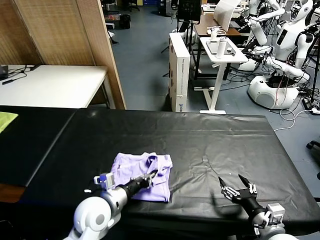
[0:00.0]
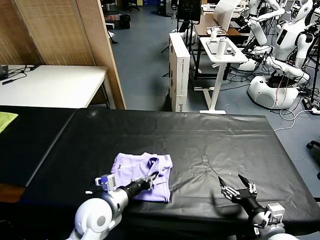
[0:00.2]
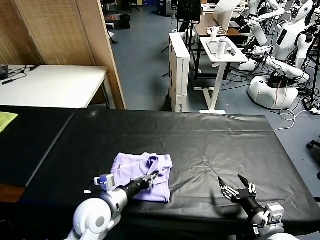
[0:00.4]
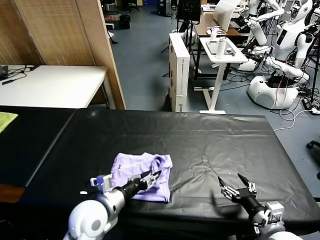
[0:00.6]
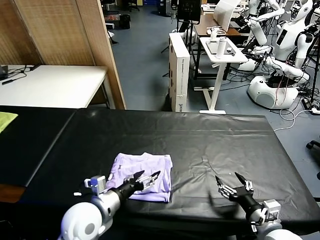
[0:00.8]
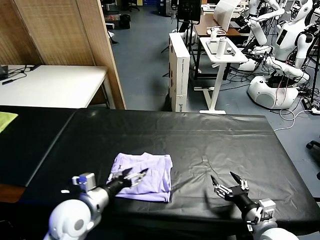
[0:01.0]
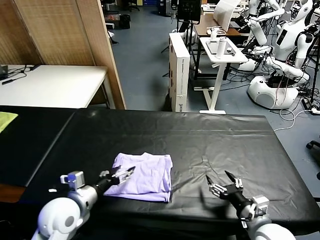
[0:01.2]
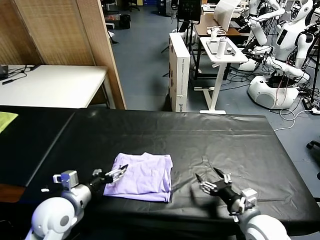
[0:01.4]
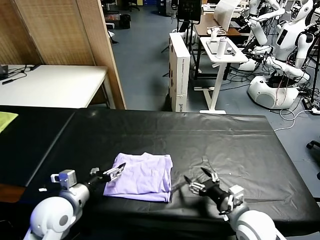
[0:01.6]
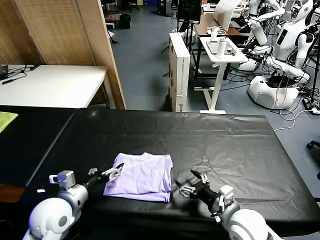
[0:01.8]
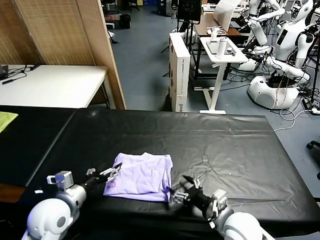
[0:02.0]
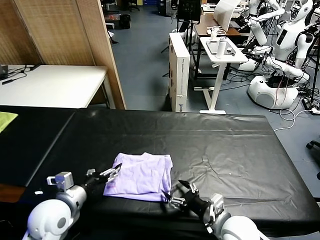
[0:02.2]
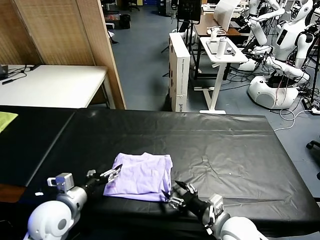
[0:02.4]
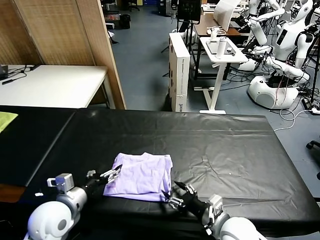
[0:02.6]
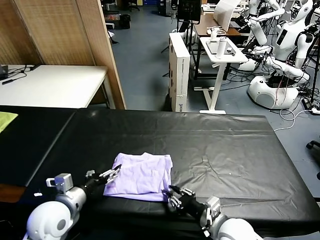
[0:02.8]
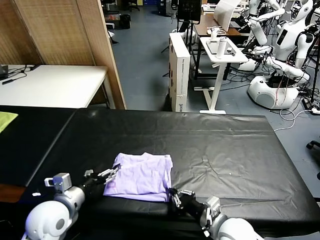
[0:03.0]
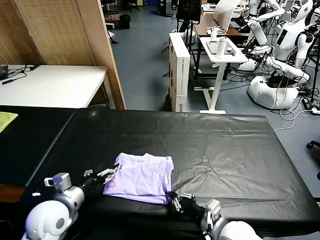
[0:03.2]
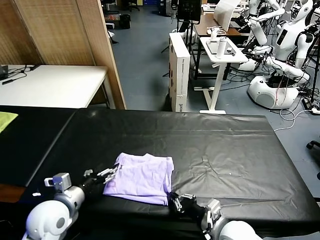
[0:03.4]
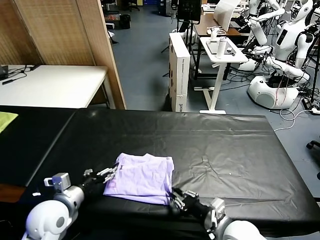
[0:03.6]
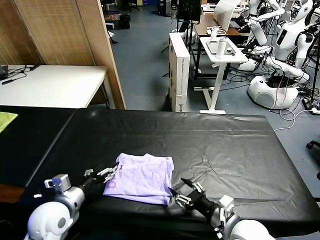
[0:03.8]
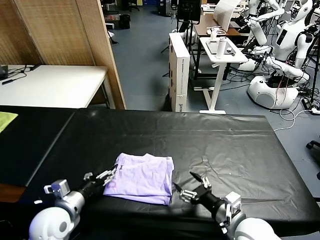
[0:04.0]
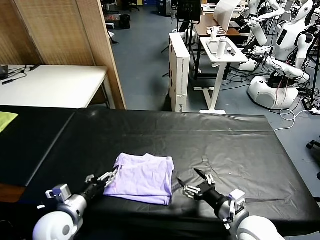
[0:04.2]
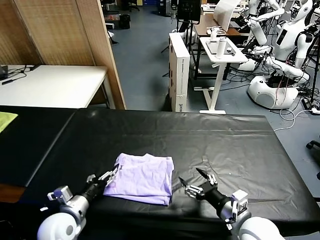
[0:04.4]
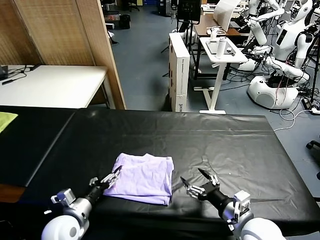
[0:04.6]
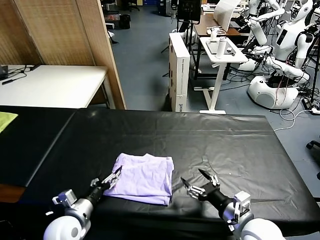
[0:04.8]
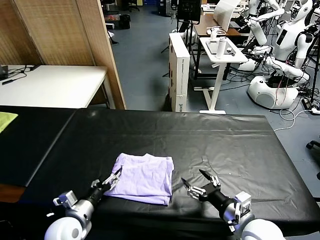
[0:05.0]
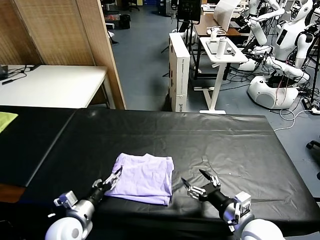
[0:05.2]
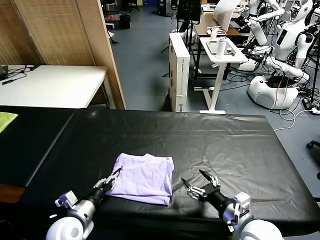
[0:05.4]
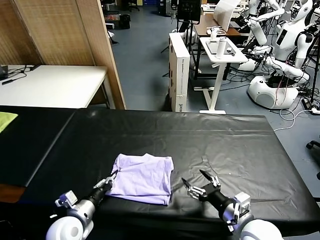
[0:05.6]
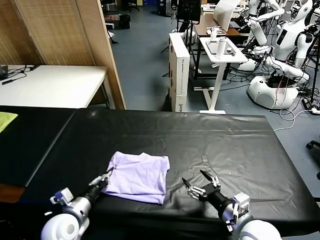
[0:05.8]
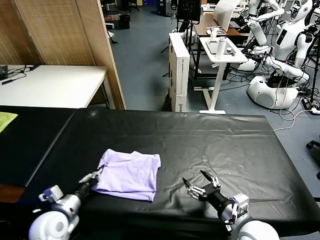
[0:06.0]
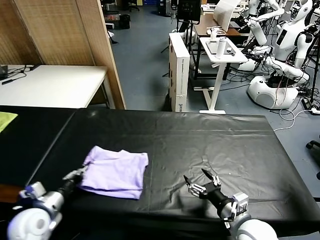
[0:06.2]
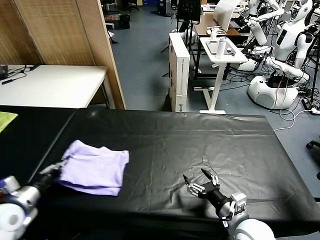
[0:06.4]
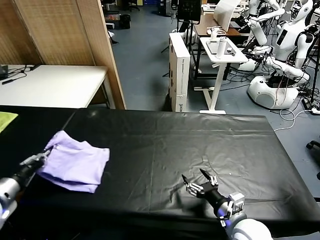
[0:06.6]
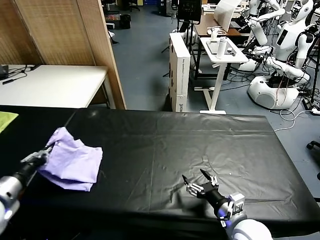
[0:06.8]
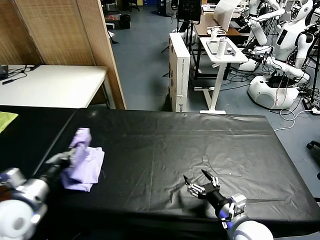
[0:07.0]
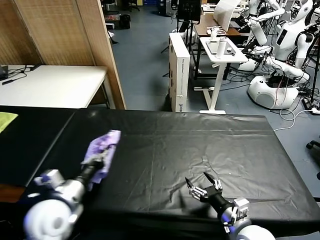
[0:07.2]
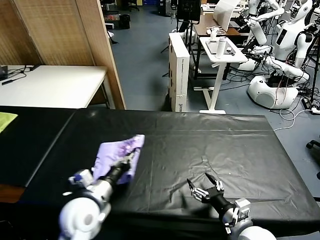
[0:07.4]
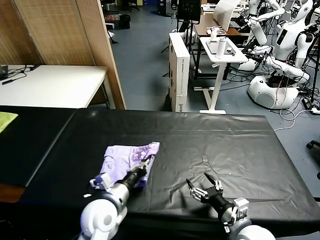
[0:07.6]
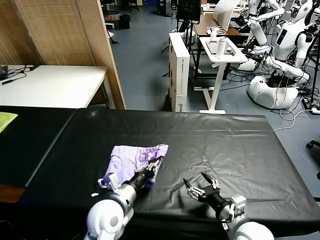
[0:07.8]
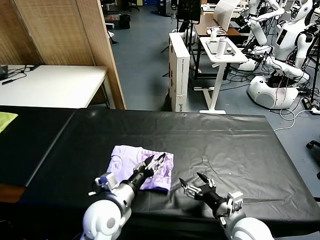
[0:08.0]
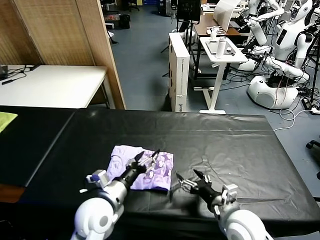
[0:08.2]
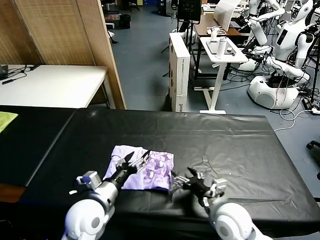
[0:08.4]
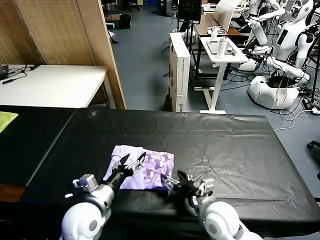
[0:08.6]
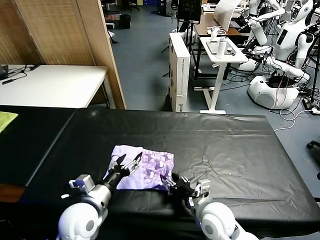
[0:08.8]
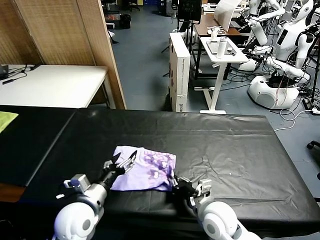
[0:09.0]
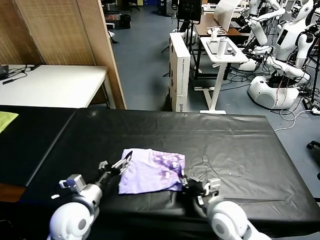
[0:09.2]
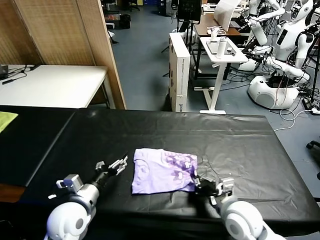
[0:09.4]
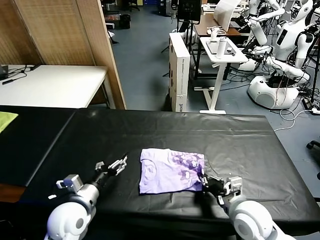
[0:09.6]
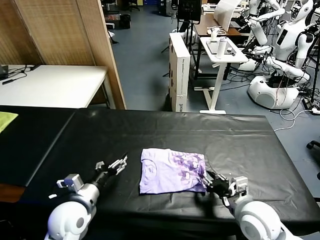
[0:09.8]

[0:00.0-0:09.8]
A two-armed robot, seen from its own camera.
Task of the whole recording: fold and organize the clothes.
Step, 0:01.0 to 0:08.0: Flip the folded clothes over with left gripper.
Step, 0:08.2 to 0:09.8: Drag the clothes to the center of the table.
0:00.0 to 0:01.4: The left gripper goes roughly 10 cm to the left, and opens its fingers. Meanwhile the right gripper shifts by some 5 cm.
0:01.4 to 0:02.8: The right gripper heads to the left, covering approximately 5 cm, and closes.
0:02.8 to 0:04.2: The right gripper shifts by roughly 5 cm, and opens, while the left gripper shifts by some 5 cm.
0:04.2 to 0:05.6: The left gripper closes its fingers.
0:05.6 to 0:07.0: The left gripper travels upward and to the left by about 20 cm.
0:07.0 to 0:08.4: The left gripper goes about 20 cm to the right and downward, and opens. The right gripper ends up approximately 5 cm from where it was.
0:08.4 to 0:09.8: The right gripper shifts some 5 cm to the right, and closes its fingers, while the left gripper travels to the left by roughly 5 cm.

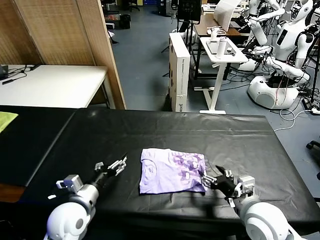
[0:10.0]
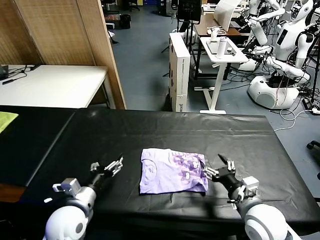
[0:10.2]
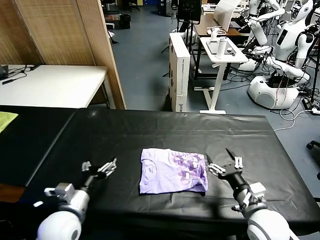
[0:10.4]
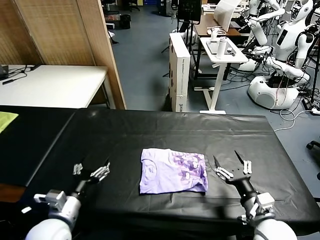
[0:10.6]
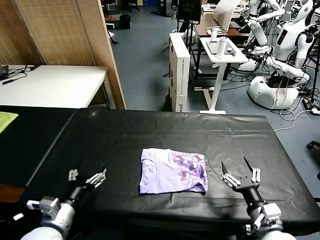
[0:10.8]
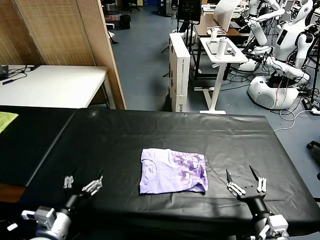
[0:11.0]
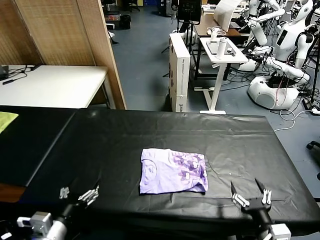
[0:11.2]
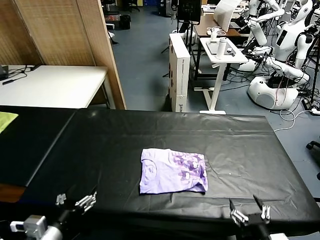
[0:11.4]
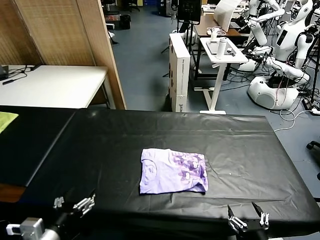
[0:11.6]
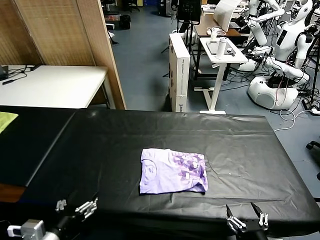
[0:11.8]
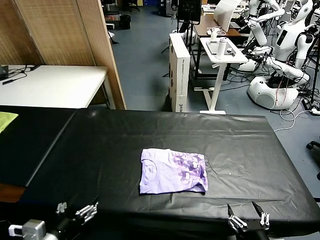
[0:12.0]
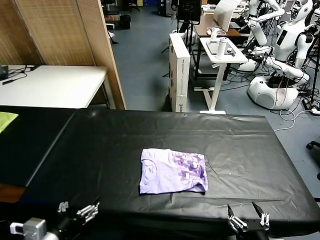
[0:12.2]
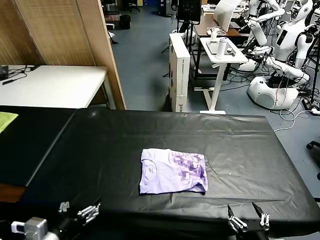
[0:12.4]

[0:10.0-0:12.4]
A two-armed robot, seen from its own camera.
Task of the whole recording: fold and organize the clothes.
0:10.0 to 0:11.2: Both grippers move backward, approximately 10 cm.
0:11.2 to 0:12.4: The left gripper changes place by approximately 5 cm, while the right gripper ends up about 5 cm from where it was.

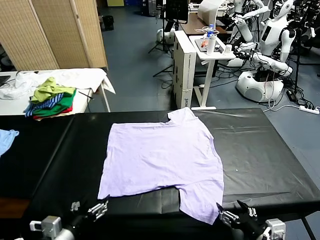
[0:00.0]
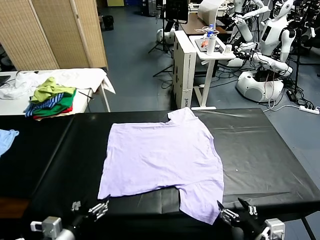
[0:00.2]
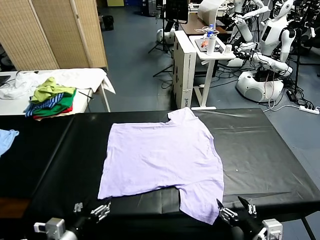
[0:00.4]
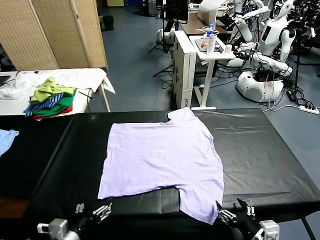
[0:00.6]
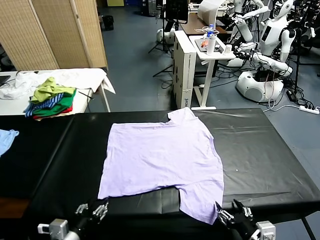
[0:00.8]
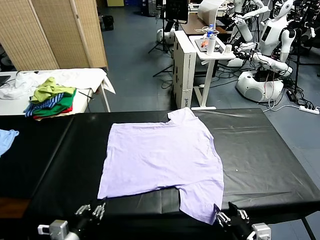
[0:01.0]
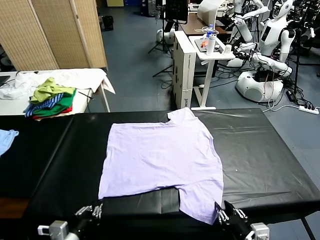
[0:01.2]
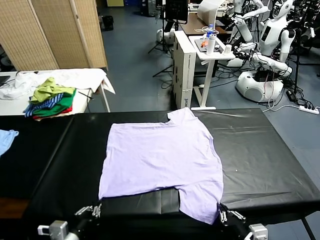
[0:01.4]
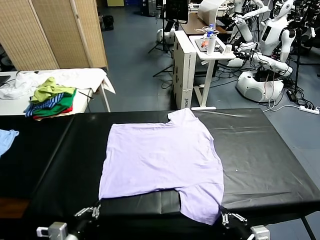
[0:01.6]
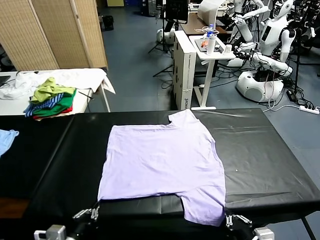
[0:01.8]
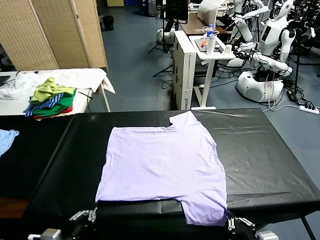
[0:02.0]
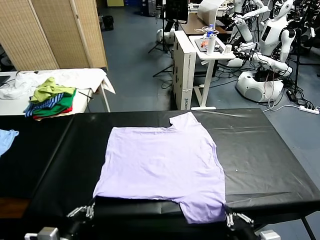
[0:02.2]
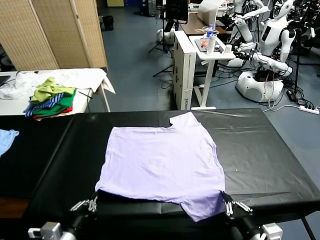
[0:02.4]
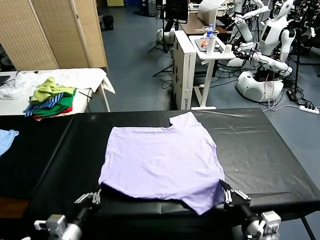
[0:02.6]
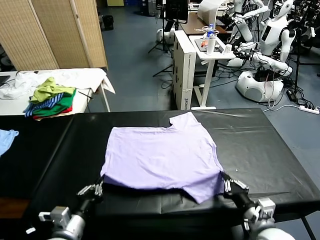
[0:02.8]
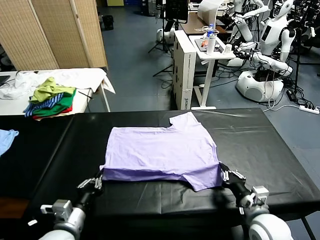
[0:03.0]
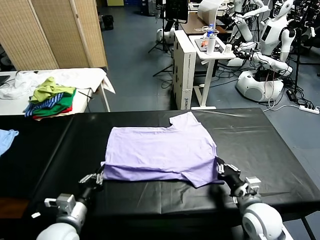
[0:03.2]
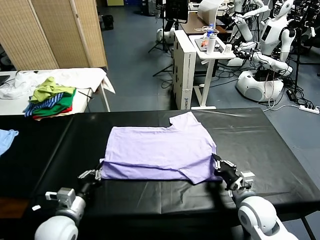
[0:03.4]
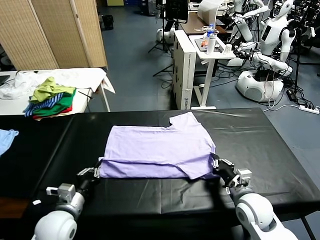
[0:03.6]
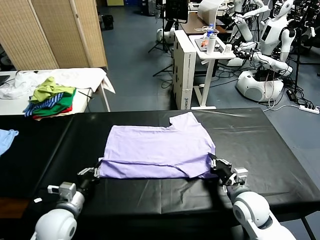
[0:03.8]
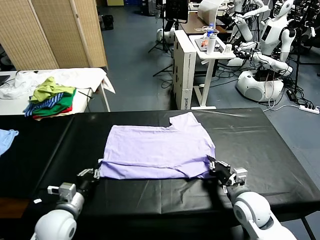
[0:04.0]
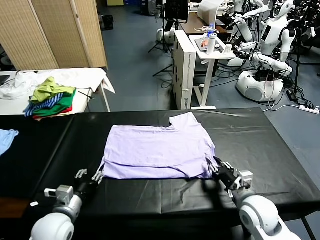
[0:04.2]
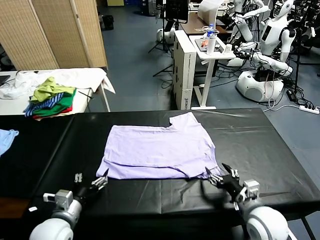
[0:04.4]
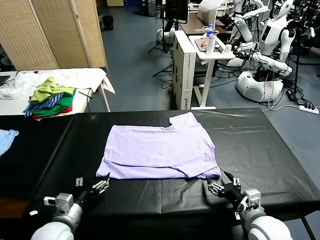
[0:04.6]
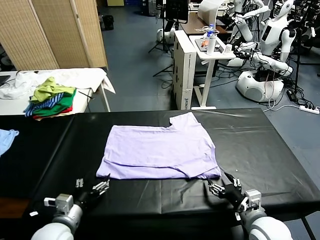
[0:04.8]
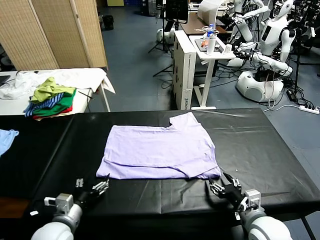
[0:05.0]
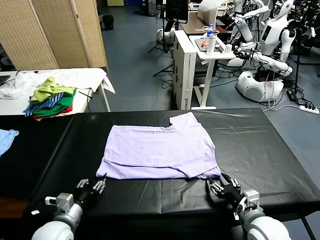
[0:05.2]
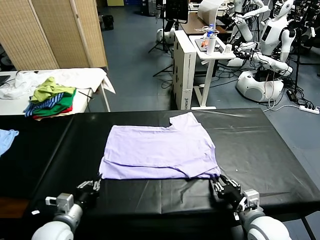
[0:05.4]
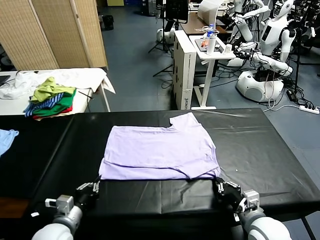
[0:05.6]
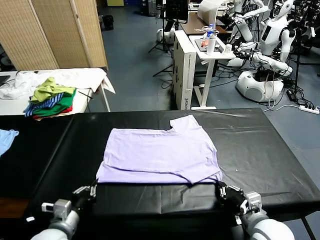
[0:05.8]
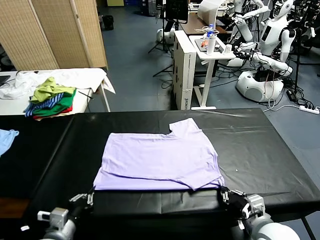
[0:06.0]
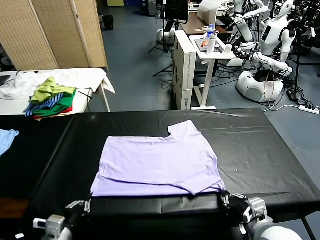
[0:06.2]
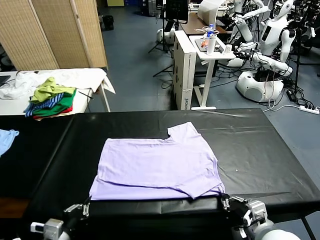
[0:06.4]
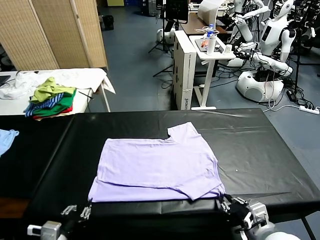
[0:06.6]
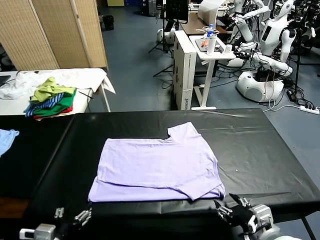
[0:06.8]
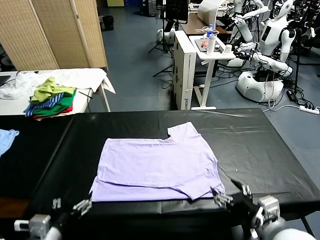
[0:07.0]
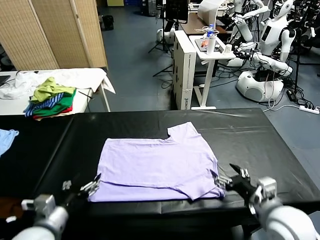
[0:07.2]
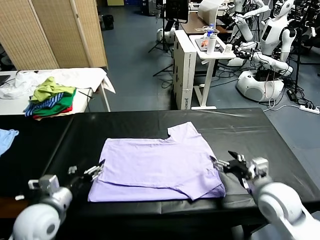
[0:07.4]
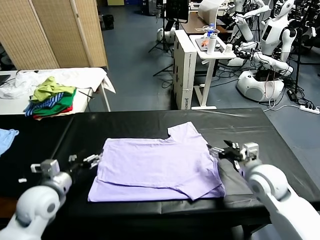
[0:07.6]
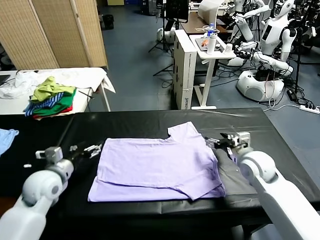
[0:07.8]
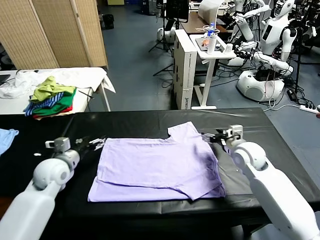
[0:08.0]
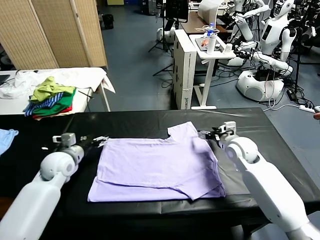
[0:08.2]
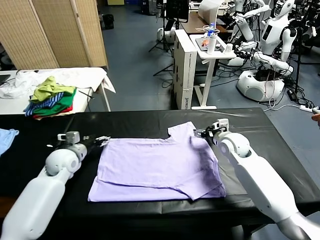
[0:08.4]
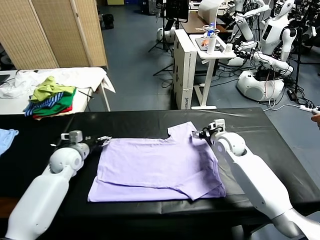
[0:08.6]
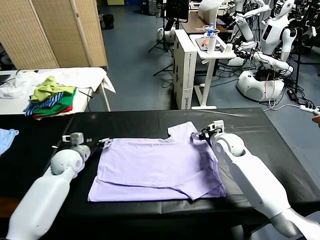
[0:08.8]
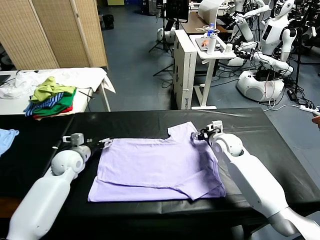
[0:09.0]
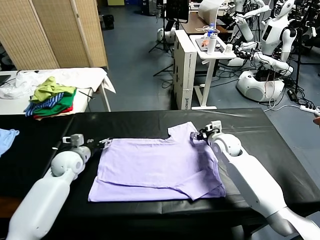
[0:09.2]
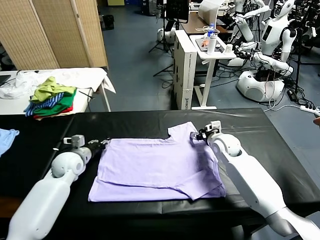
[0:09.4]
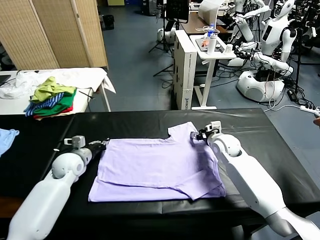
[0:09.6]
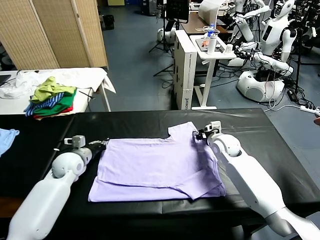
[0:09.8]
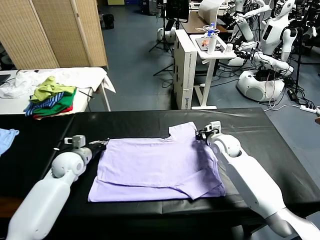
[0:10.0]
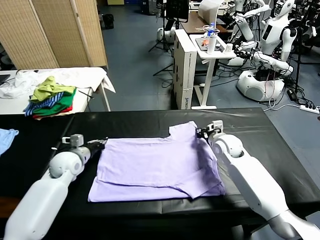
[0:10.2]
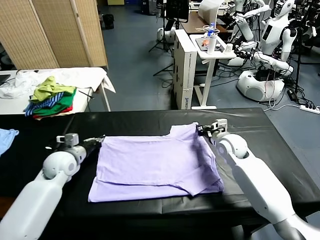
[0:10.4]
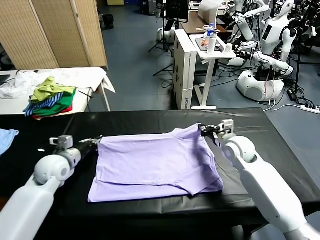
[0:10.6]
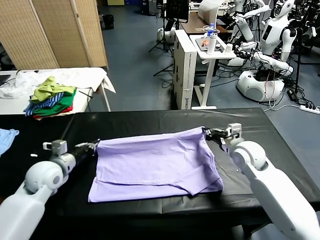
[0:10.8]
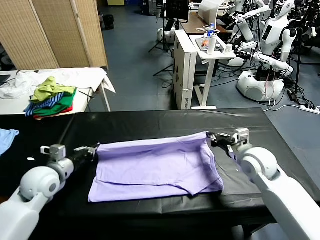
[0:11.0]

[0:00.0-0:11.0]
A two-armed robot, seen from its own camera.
Task of the whole recording: fold and organize the clothes.
Step, 0:00.0 to 0:01.8: use both grippers simultaneously to clamp the lower edge of the clothing fabric.
Step, 0:02.0 to 0:04.2: use both grippers to drag the lower edge of the fabric forward and fold it over the upper edge.
Step, 0:04.4 to 0:06.8: Drag the clothes downward with both gripper.
Step, 0:07.0 to 0:10.0: use both grippers simultaneously to clamp the upper edge of the clothing fabric.
0:01.6 to 0:03.2: The right gripper goes roughly 20 cm forward; the left gripper heads forward, covering approximately 10 cm.
0:03.2 to 0:04.8: The right gripper shifts some 5 cm backward, and opens its fingers; the left gripper opens up.
0:04.8 to 0:06.2: The right gripper moves upward, approximately 5 cm, and closes up. The left gripper shifts about 5 cm backward, and closes its fingers.
0:06.2 to 0:07.8: The two grippers go approximately 25 cm forward. The left gripper opens. Meanwhile the right gripper opens.
0:07.8 to 0:09.4: The left gripper goes approximately 10 cm forward and downward, and closes up; the right gripper heads forward, covering approximately 5 cm.
0:09.4 to 0:11.0: Both grippers move backward and upward, about 15 cm. The right gripper closes up.
